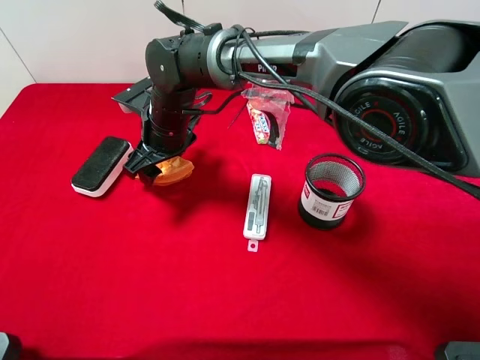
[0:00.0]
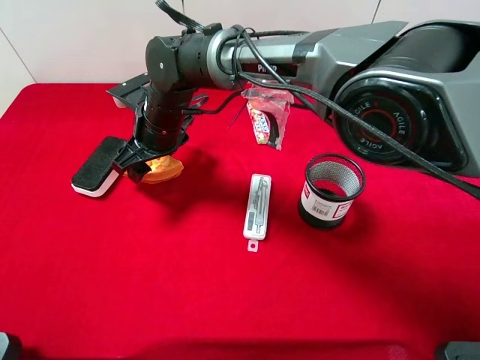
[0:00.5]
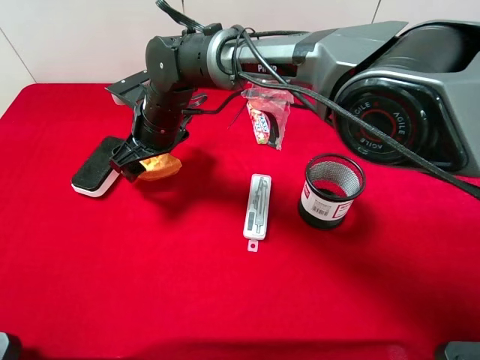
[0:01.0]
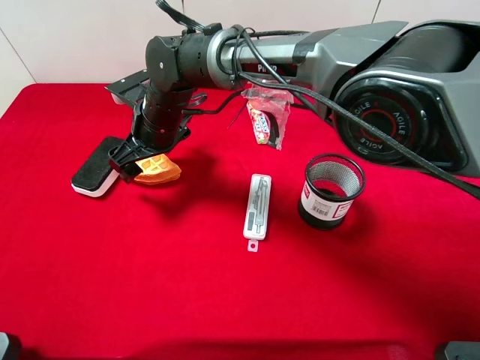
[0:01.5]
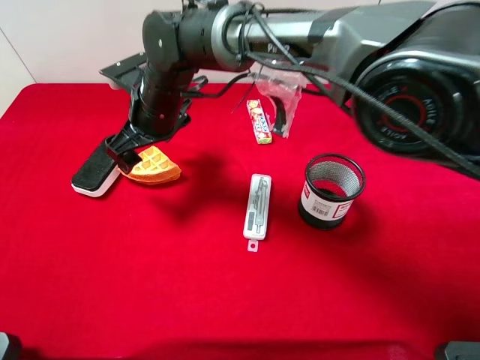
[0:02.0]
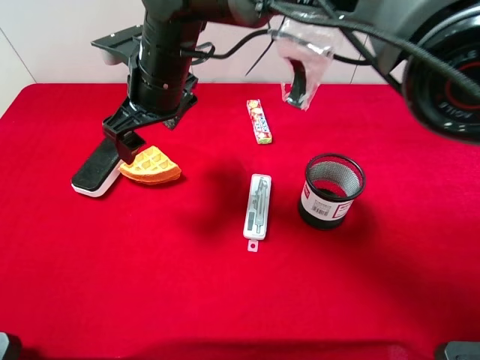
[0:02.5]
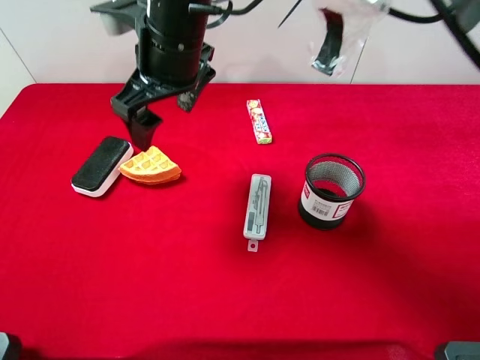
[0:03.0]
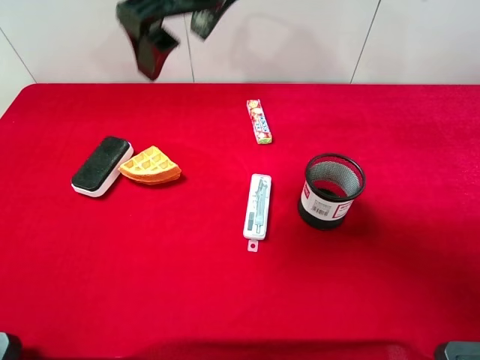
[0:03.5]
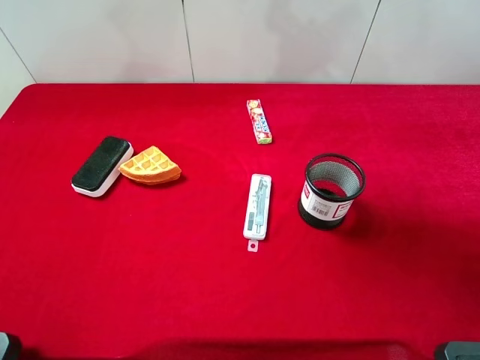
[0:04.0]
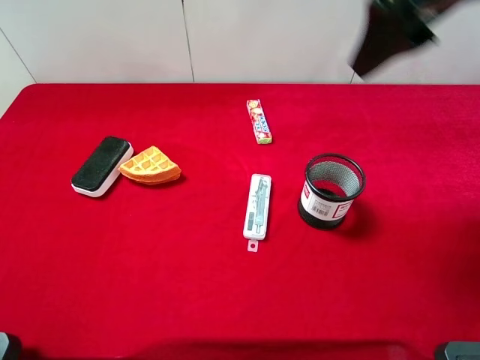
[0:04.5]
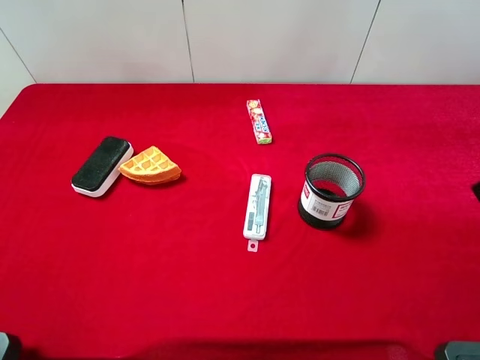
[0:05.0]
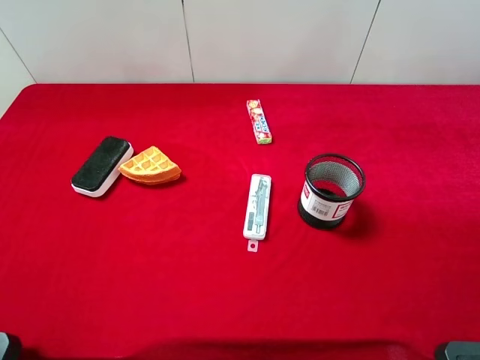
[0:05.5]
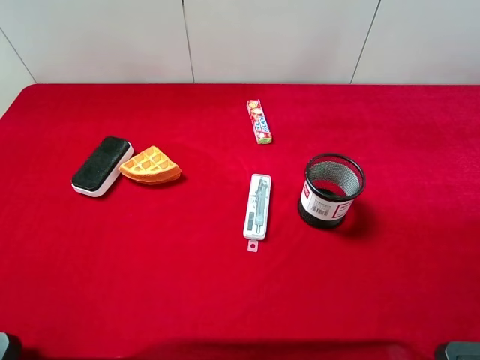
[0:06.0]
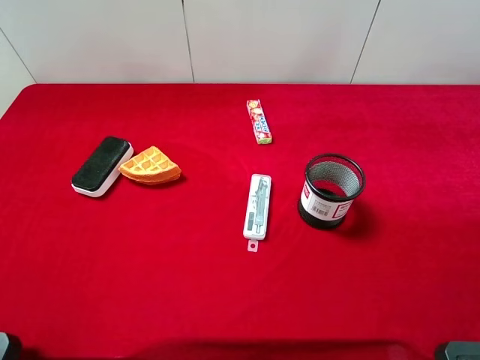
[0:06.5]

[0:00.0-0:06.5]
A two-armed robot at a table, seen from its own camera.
Task of the whole recording: the gripper move the object.
Step, 0:00.0 to 0:02.0: Place the waffle on the table with the right gripper.
0:00.0 to 0:02.0: The right gripper opens its fingers.
0:02.0 to 0:04.5: The right gripper travels to the right and upward by some 35 cm.
0:04.5 to 0:06.5: The right gripper is displaced backward and to the right by about 25 cm.
